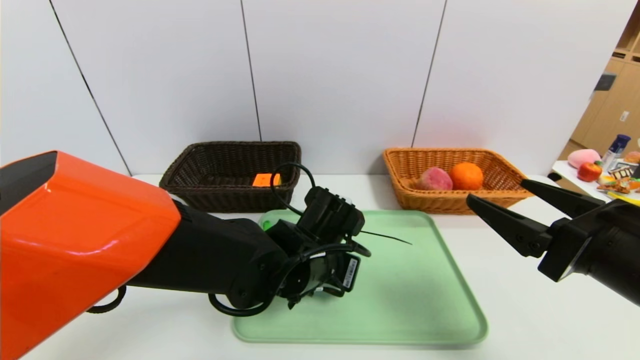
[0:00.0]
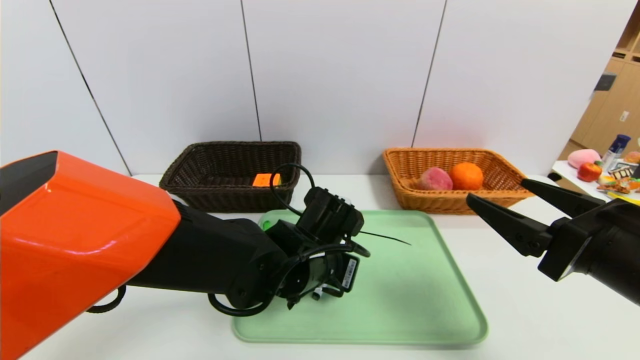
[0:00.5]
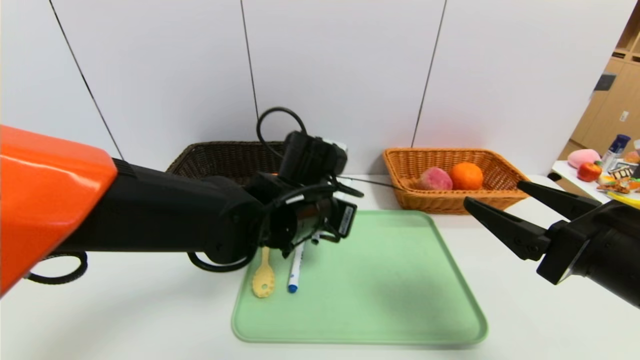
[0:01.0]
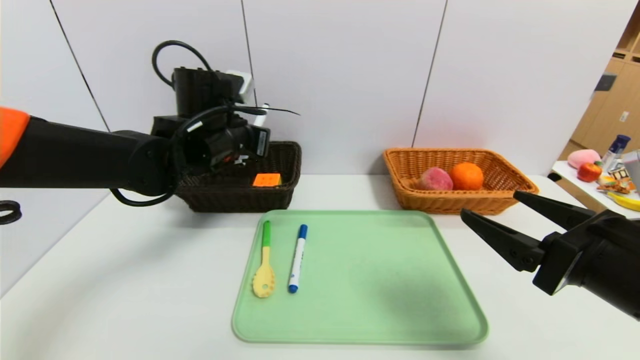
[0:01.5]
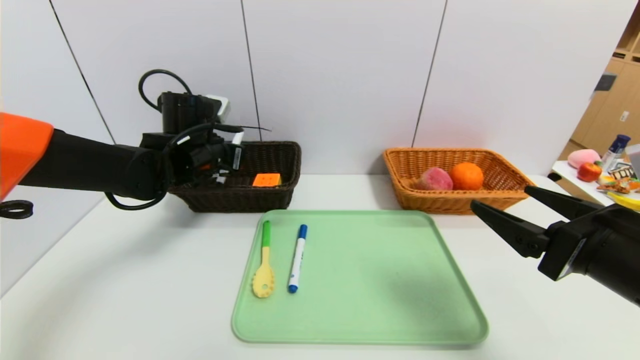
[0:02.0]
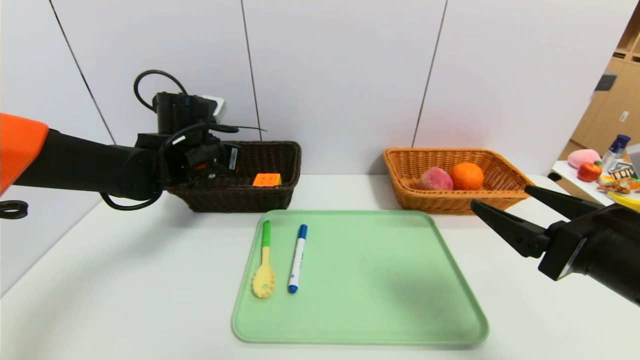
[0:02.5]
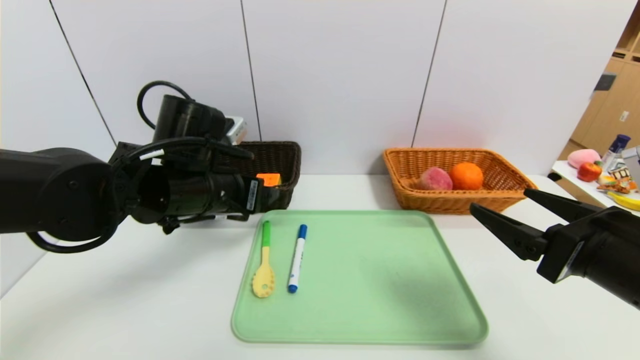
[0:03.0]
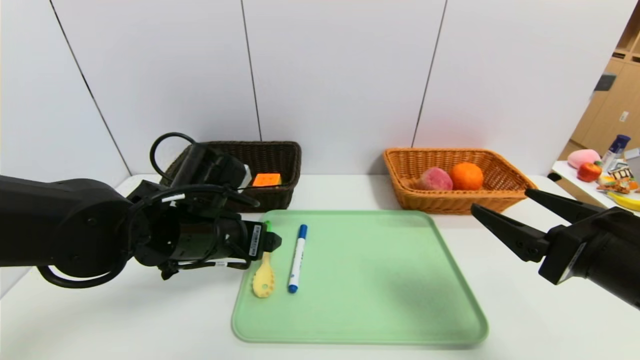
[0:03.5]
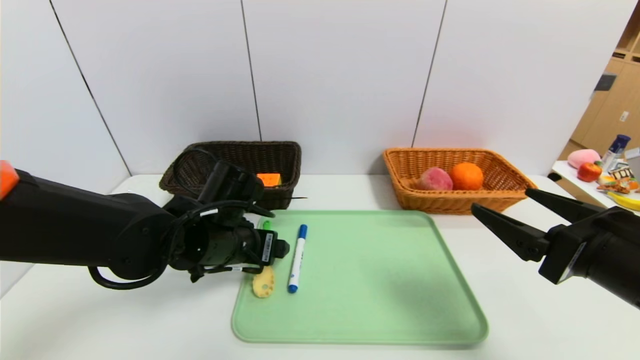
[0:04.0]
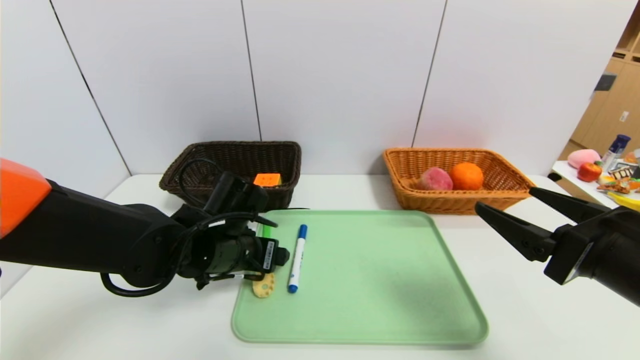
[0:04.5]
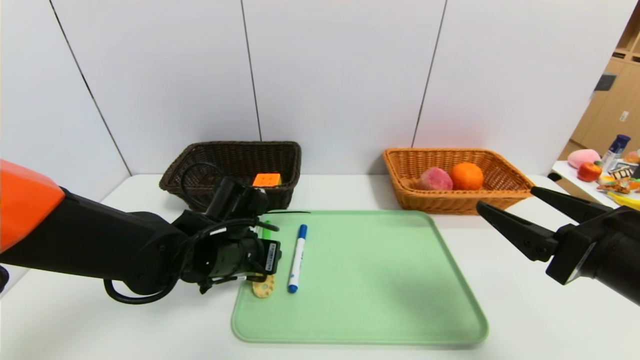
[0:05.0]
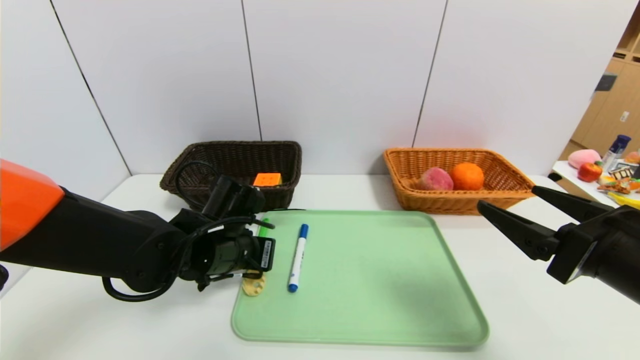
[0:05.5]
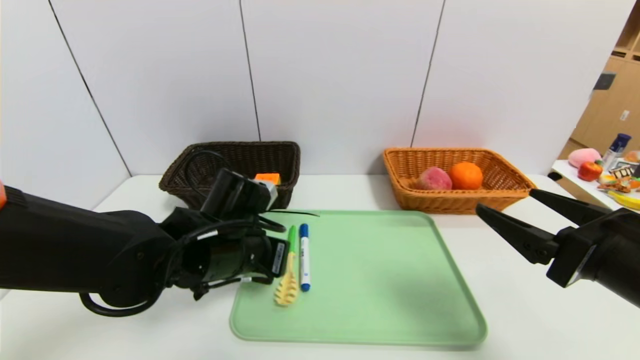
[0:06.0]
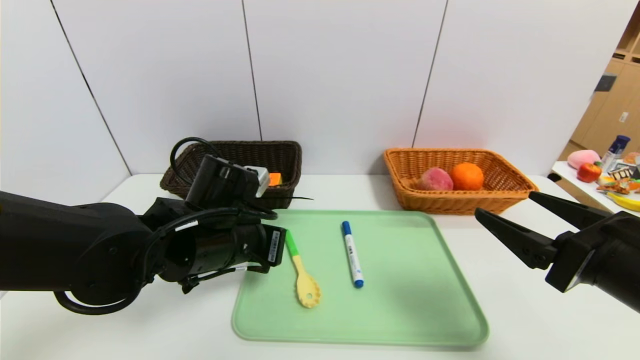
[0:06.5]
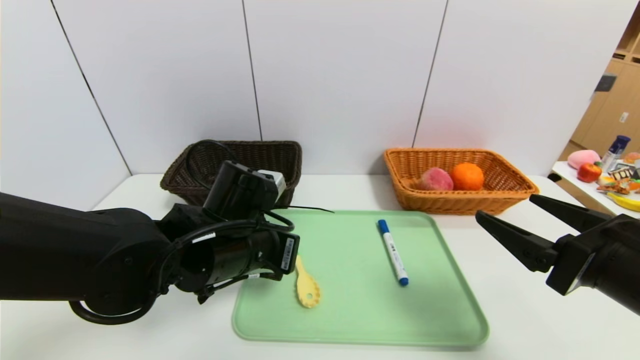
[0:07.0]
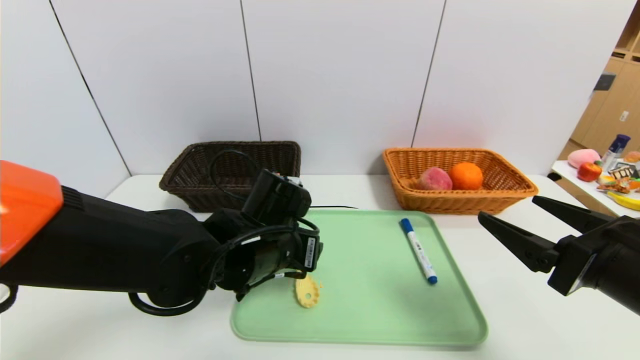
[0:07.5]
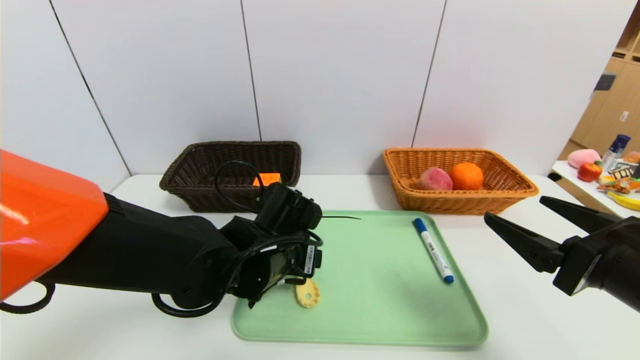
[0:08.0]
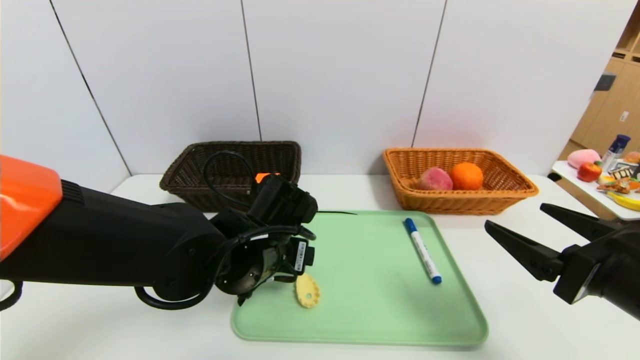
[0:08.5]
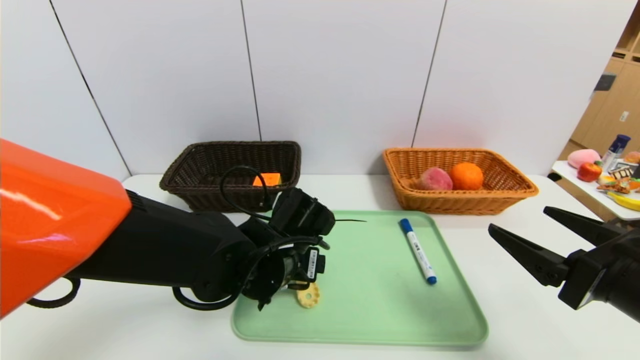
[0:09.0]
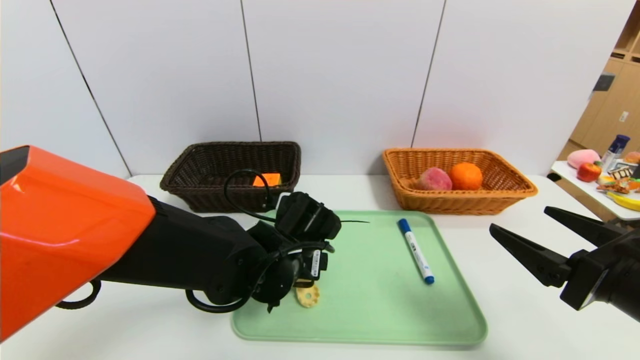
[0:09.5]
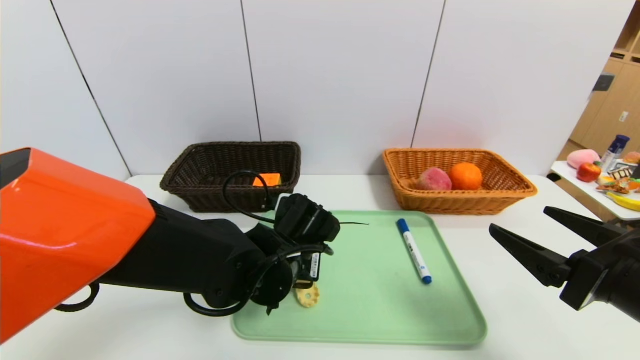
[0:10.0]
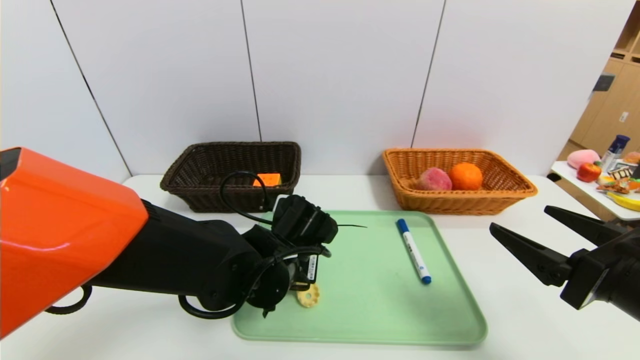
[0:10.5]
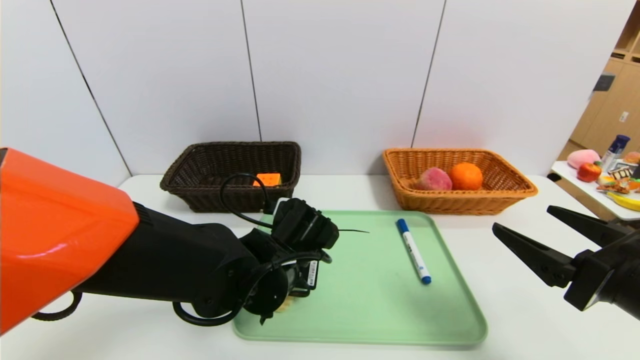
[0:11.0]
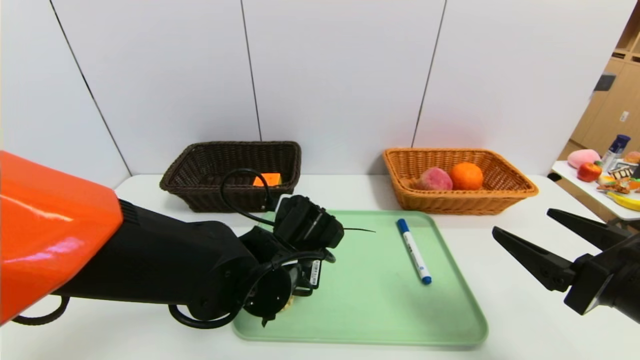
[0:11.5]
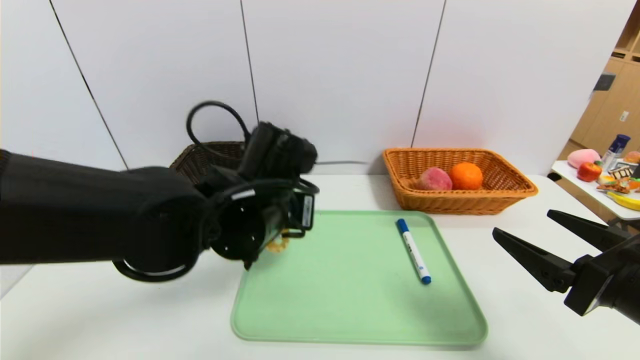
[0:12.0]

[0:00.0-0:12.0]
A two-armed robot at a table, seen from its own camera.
Task of the whole recording: place the food in the right basket with the right gripper, and place the non food items in the left basket with the left gripper.
Step, 0:00.0 to 0:02.5: Grasp the black marker and put it in the left basket.
0:00.0 to 0:02.0: The left gripper shifts about 25 cm to the left, forward and upward.
0:02.0 to 0:04.0: The left gripper goes about 15 cm backward, to the right and downward, and opens up.
0:04.0 to 0:06.0: The left gripper closes up.
0:06.0 to 0:08.0: The left gripper heads to the right, covering about 5 cm, and opens.
0:08.0 to 0:10.0: The left gripper closes its fingers.
0:10.0 to 0:12.0: The left gripper moves upward, some 10 cm, and closes its fingers.

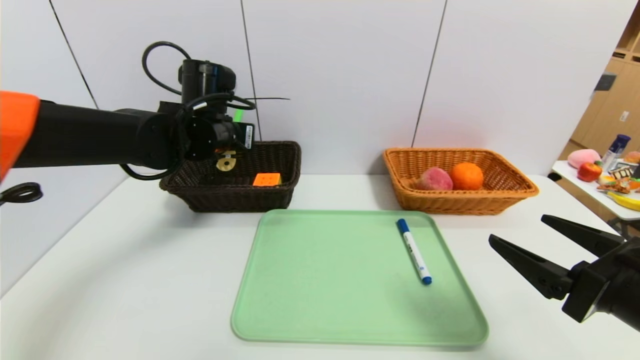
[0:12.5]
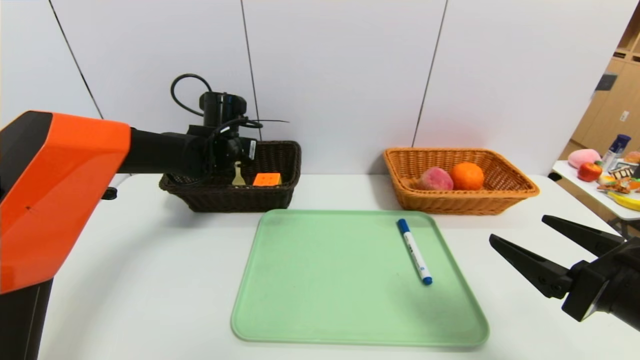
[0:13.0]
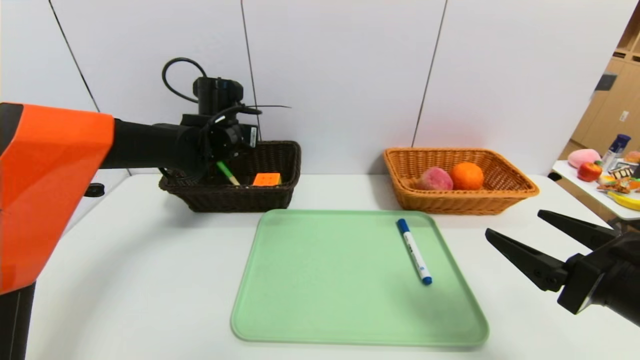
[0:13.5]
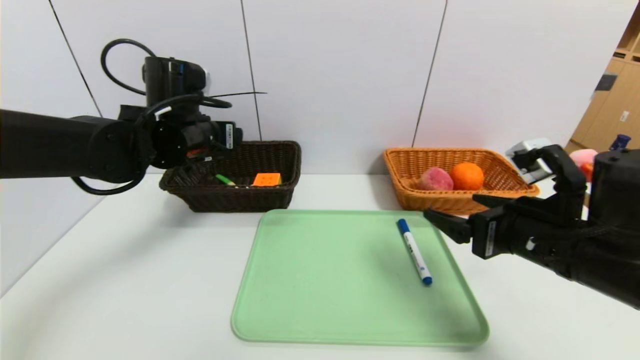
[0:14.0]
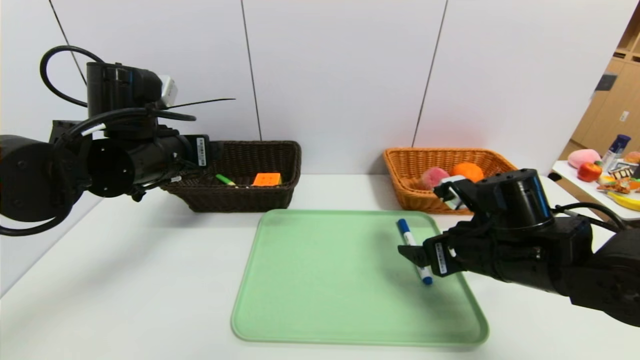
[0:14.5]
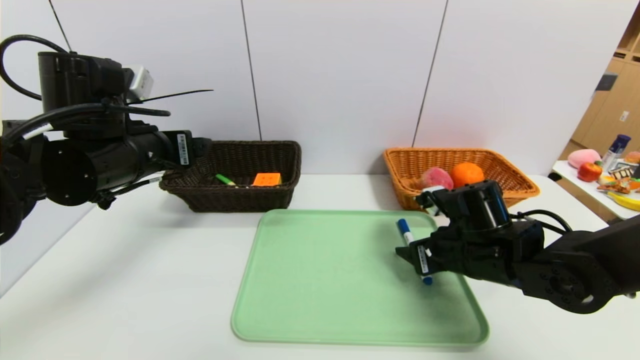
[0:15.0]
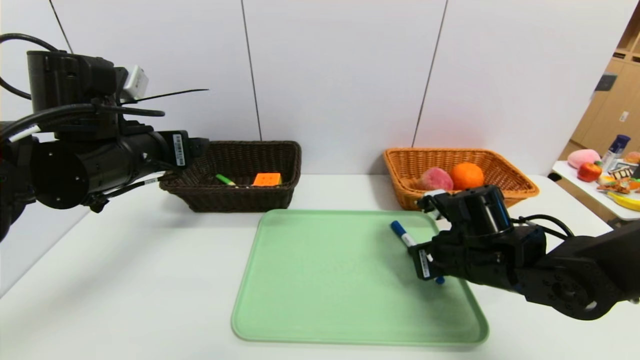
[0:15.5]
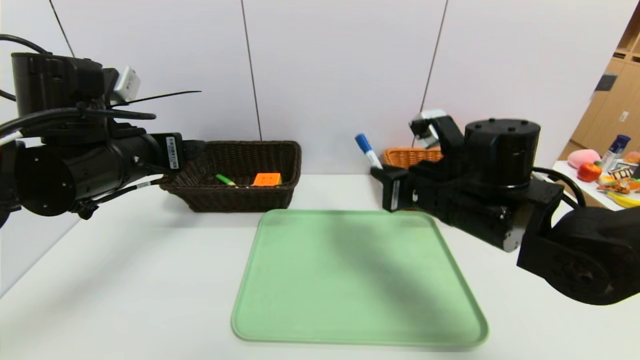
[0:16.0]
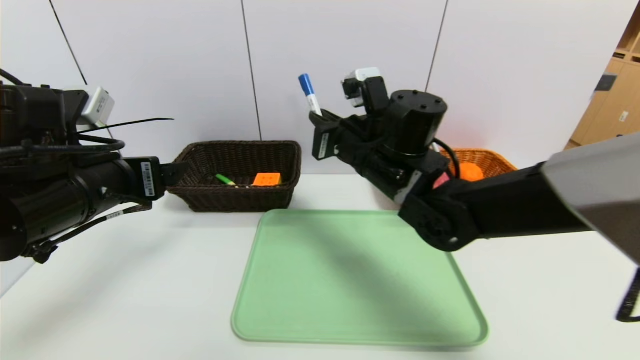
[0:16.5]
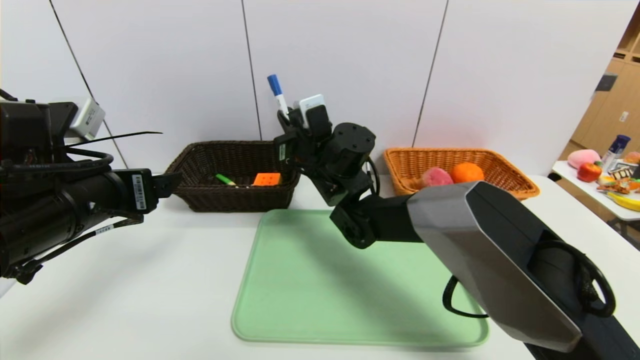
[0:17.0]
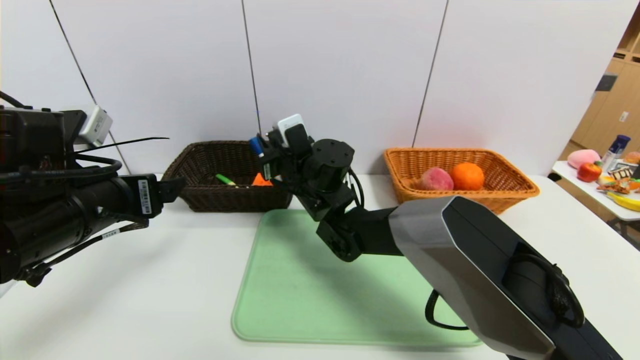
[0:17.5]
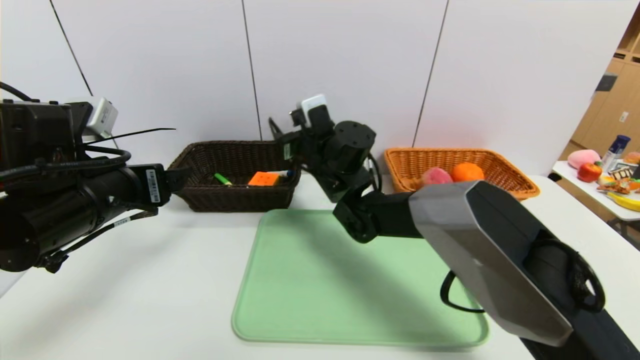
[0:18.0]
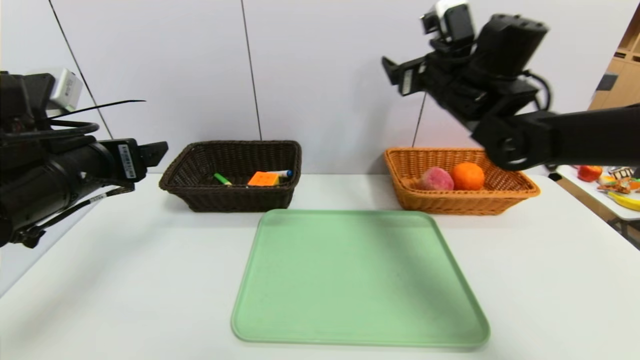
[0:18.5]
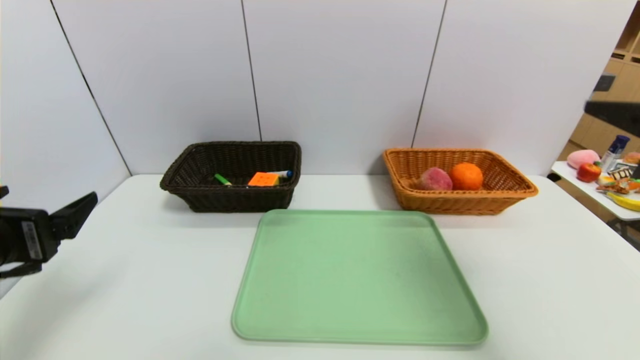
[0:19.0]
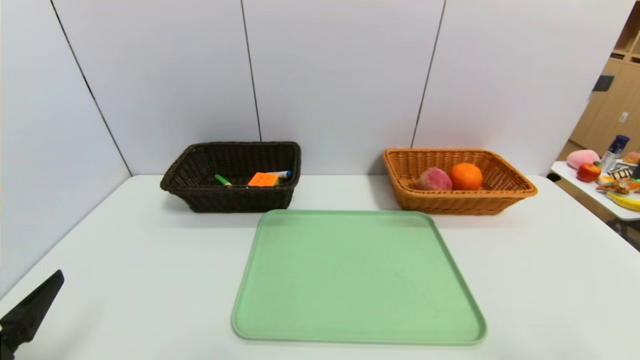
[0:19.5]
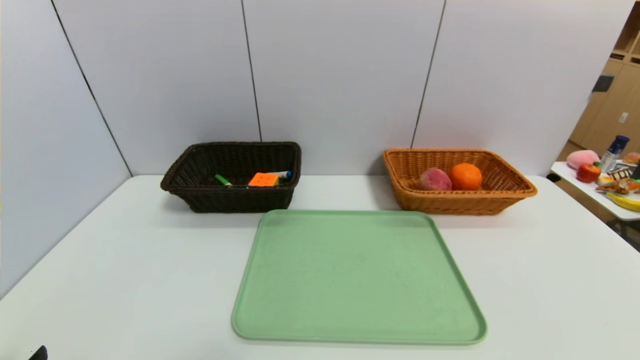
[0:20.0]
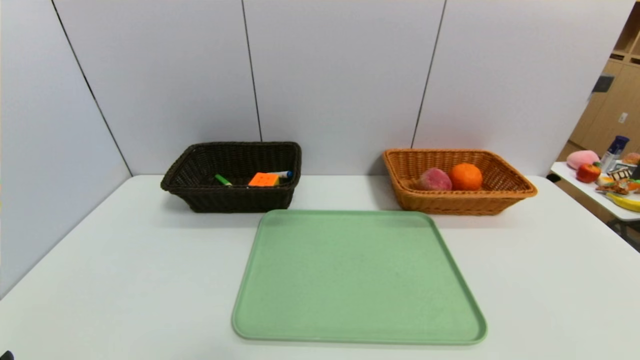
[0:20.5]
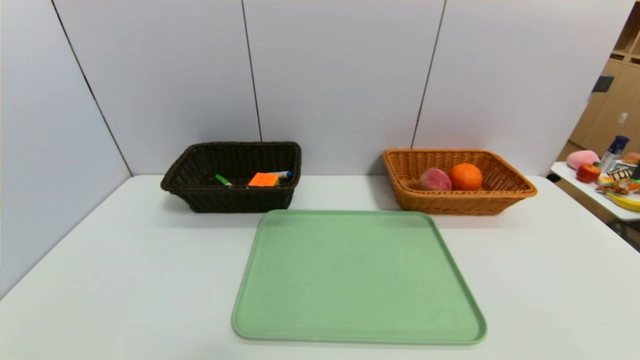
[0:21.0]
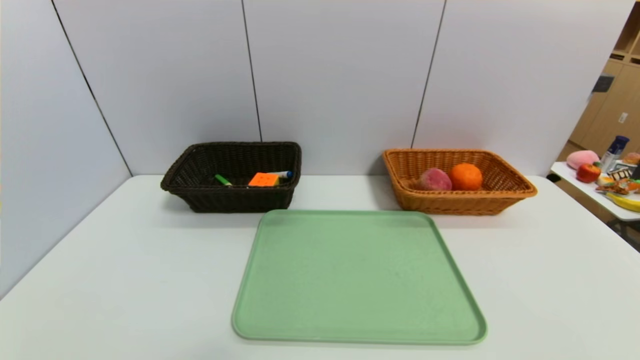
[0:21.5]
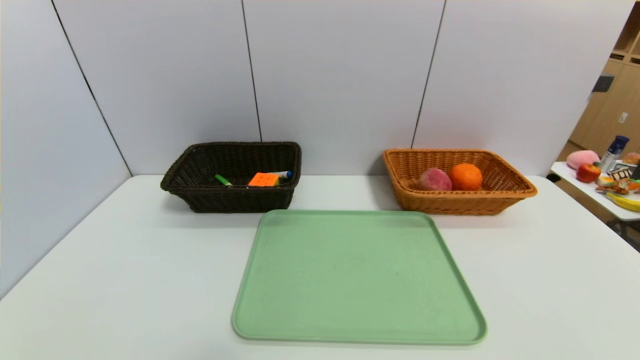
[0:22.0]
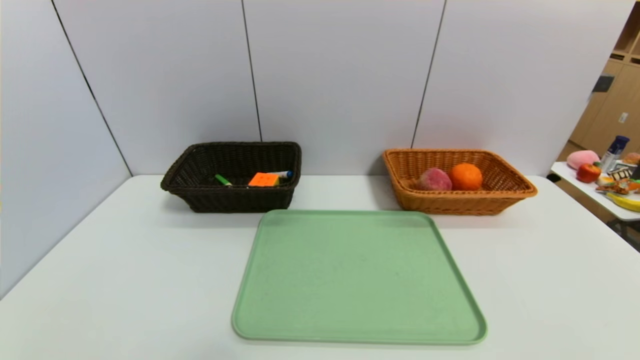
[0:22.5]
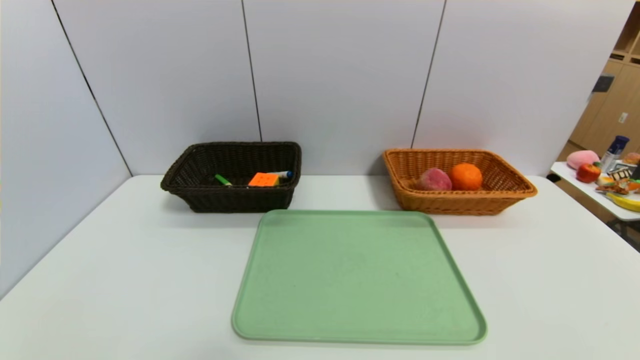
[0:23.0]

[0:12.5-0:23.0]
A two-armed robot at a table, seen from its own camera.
Task of the whole recording: place the food in the right basket with the right gripper, and place the non food items in the left basket with the left gripper.
Step, 0:13.5 to 0:17.5: Grasp the blue marker and put it in the left basket.
0:12.5 to 0:14.5: The left gripper moves backward, approximately 10 cm, and opens its fingers. The right gripper goes some 15 cm forward and to the left.
0:14.5 to 0:16.5: The left gripper travels backward by about 10 cm. Meanwhile the right gripper shifts about 20 cm to the left, forward and upward, and closes.
0:16.5 to 0:19.0: The left gripper goes approximately 10 cm backward and to the left. Meanwhile the right gripper shifts about 30 cm to the right, backward and upward, and opens.
0:19.0 to 0:21.0: The left gripper moves backward and downward, about 20 cm; the right gripper moves downward and backward, some 30 cm.
